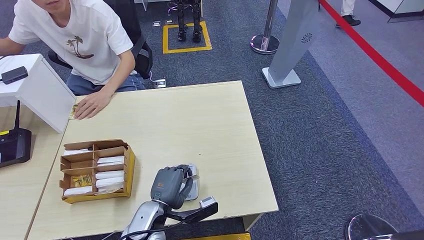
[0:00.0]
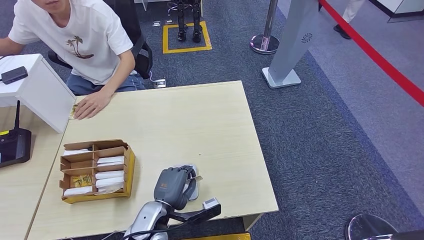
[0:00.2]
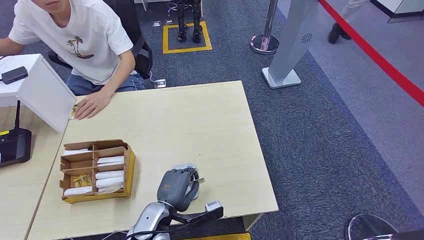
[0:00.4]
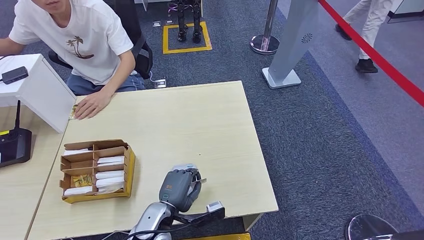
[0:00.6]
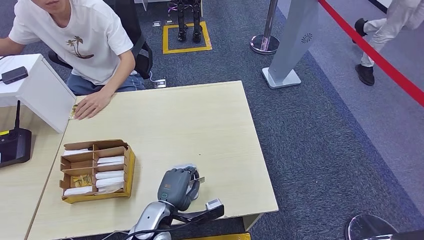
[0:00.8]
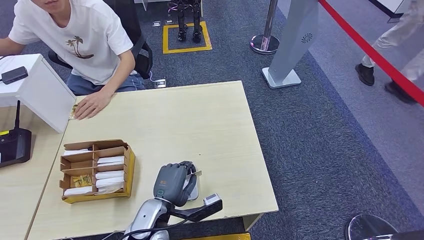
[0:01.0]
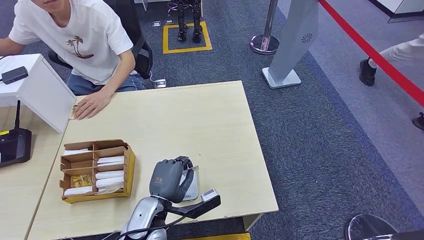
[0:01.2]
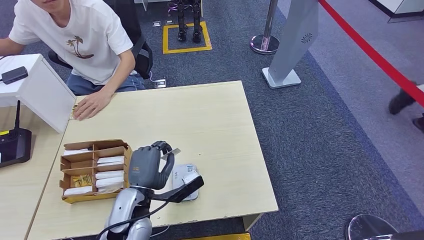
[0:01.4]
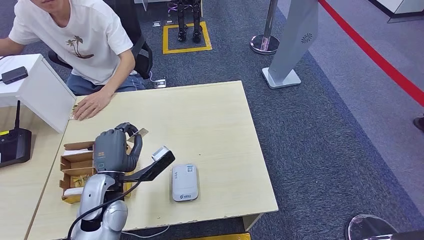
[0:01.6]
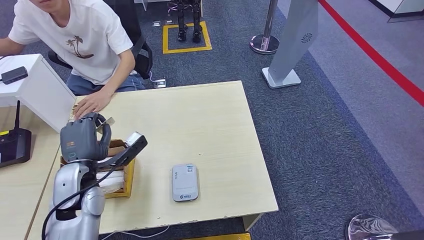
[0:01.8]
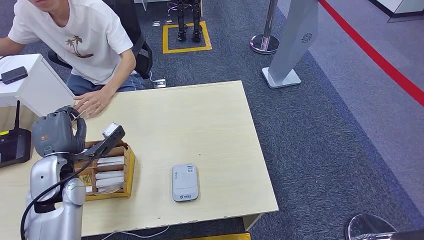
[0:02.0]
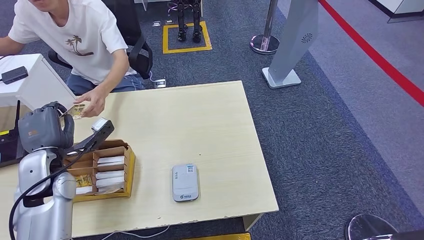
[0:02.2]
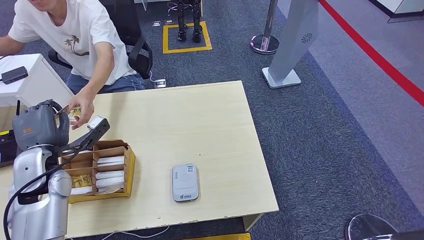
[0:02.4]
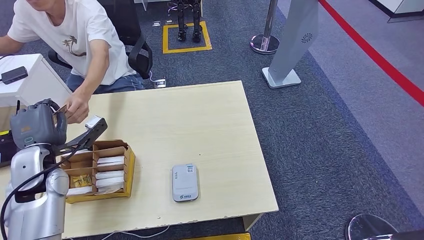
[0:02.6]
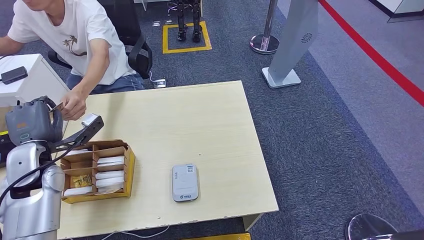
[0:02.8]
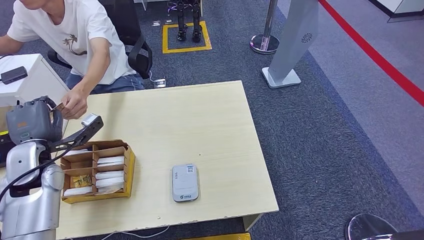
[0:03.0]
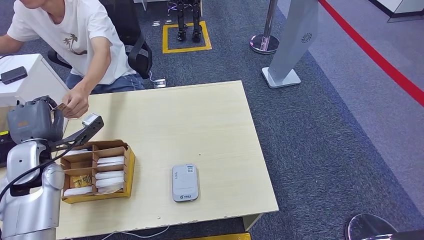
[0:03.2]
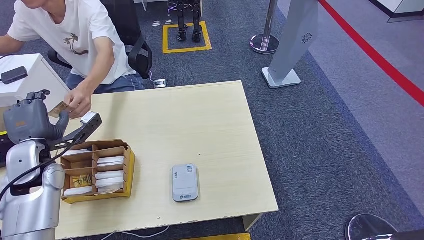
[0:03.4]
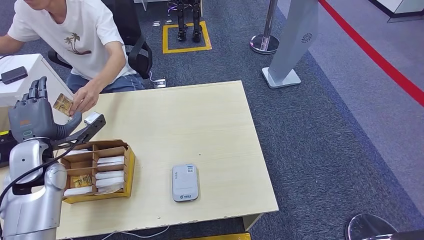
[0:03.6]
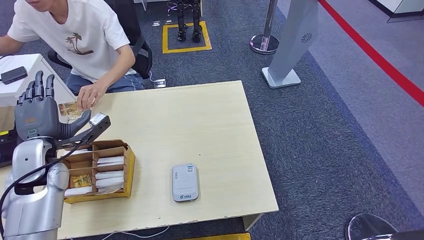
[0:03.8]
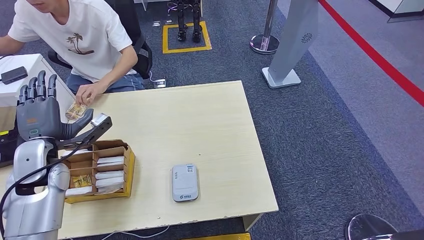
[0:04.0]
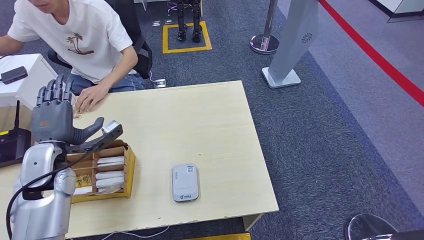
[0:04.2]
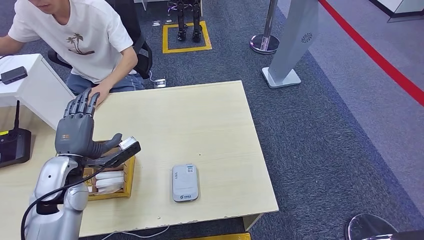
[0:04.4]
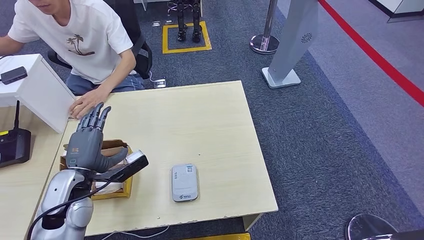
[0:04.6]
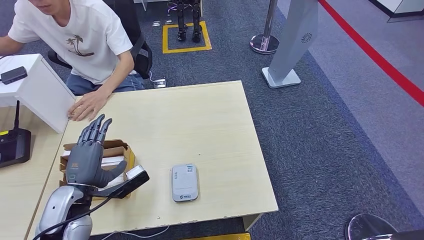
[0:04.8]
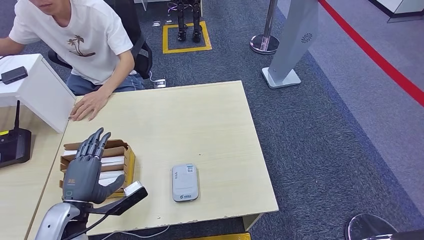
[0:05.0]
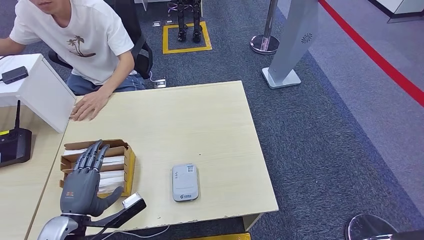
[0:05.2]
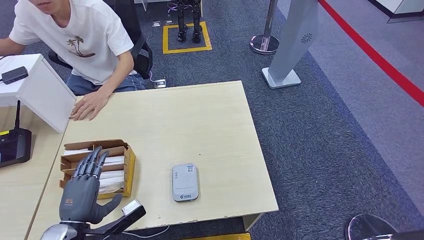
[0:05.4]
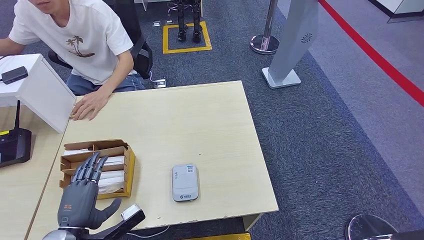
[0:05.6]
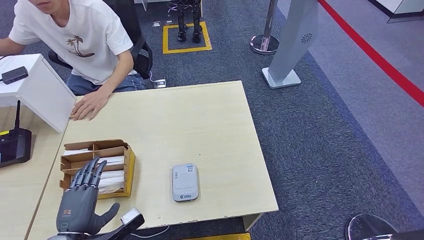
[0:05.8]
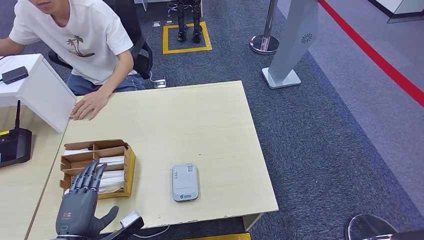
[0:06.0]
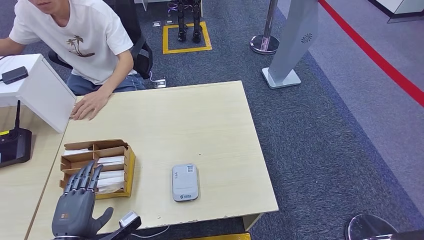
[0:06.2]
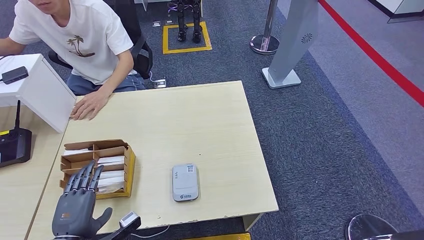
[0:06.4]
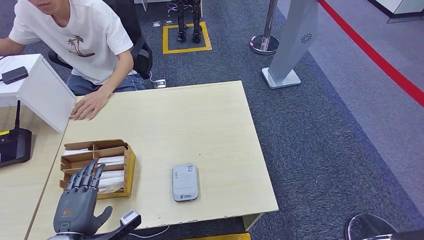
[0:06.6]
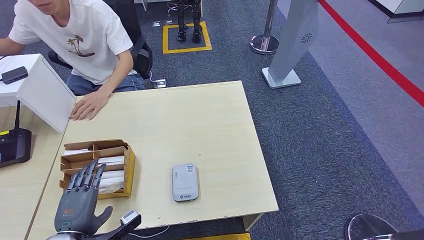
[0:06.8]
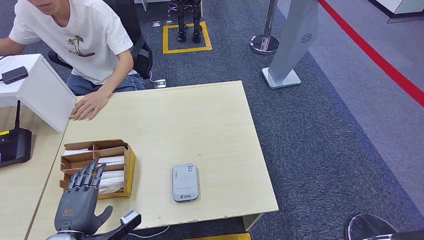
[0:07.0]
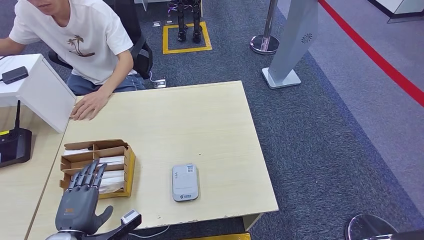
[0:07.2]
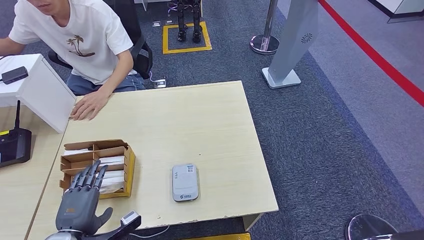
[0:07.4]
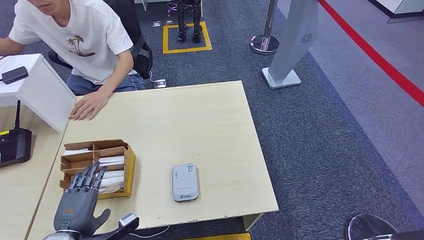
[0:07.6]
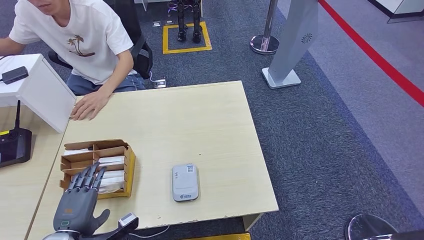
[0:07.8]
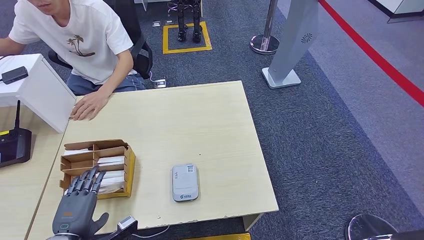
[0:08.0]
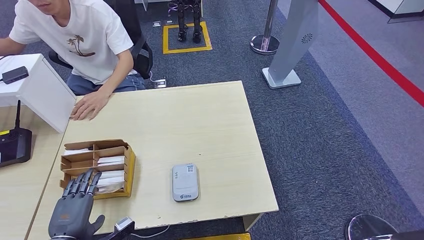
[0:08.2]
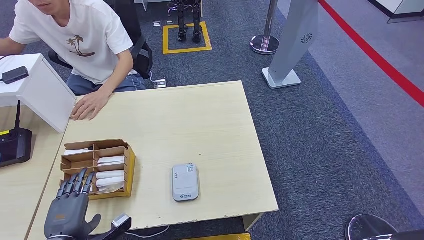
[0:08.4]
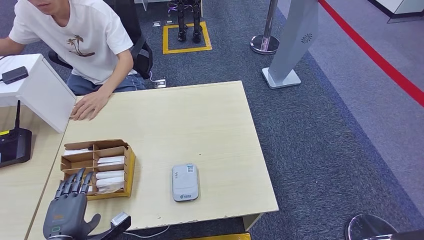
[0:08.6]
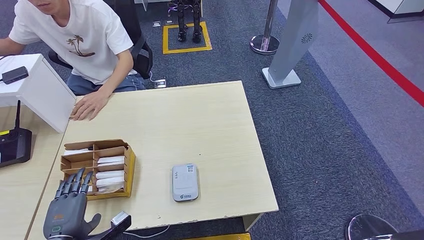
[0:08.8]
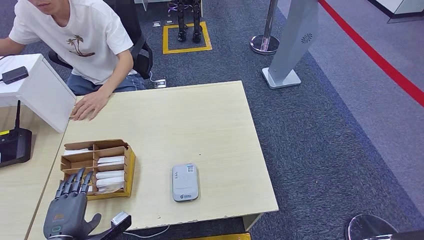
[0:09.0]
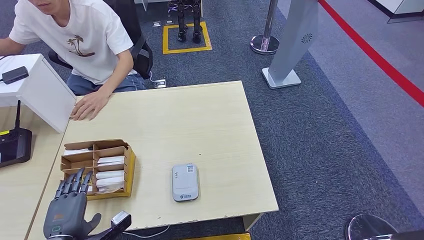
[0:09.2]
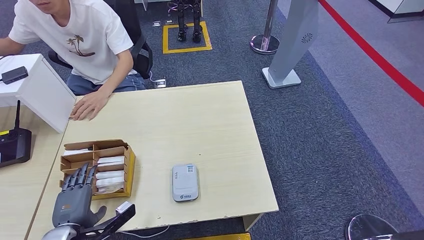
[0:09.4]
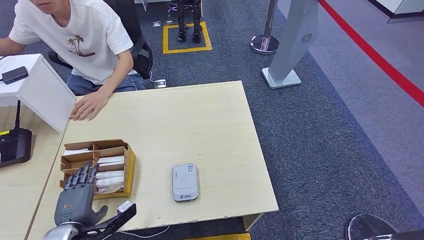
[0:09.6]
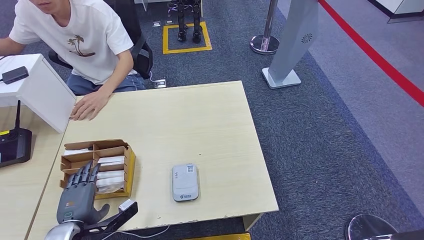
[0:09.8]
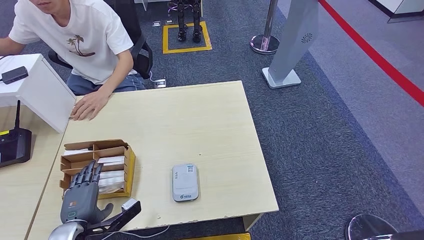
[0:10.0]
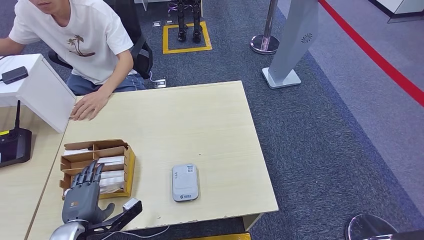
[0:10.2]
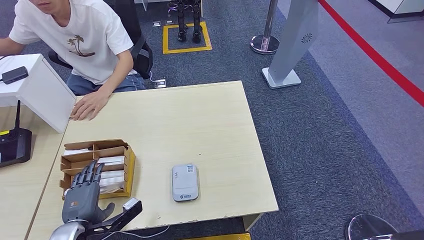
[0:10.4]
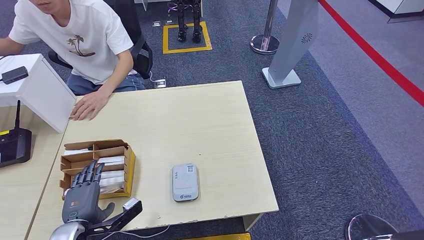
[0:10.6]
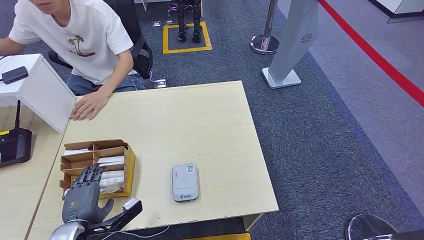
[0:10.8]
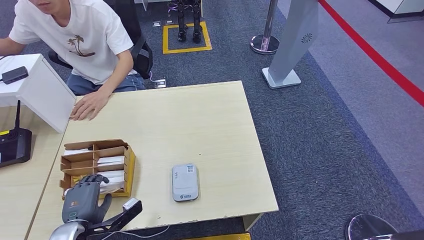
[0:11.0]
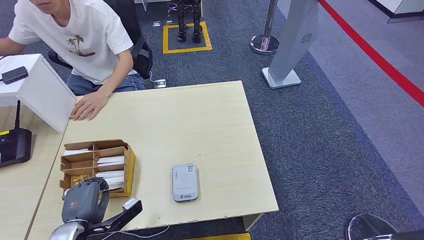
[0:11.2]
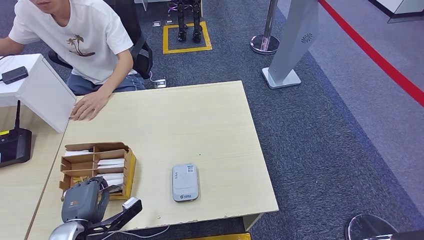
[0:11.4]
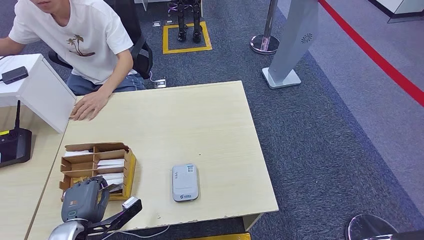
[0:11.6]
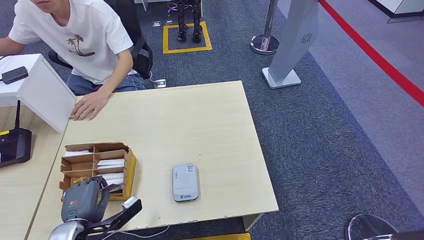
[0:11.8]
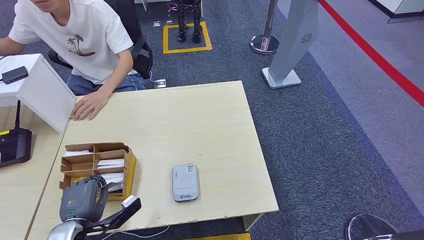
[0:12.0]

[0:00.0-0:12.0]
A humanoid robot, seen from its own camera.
Step, 0:01.6 to 0:03.4: Hand the ID card to the person.
Step, 0:03.6 to 0:12.0: Pick up the room key from the key card box.
0:00.0 to 0:01.6: The left hand travels upward and to the left by about 10 cm.
0:01.6 to 0:03.0: The left hand moves to the left and forward, approximately 20 cm.
0:03.0 to 0:04.4: The left hand is displaced to the right by roughly 5 cm.
0:04.4 to 0:06.0: The left hand moves backward and downward, about 15 cm.
0:06.0 to 0:10.4: The hands move only a little.
0:10.4 to 0:12.0: Both hands stay about where they are.

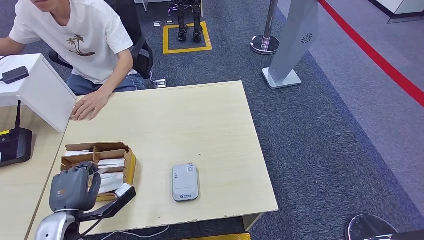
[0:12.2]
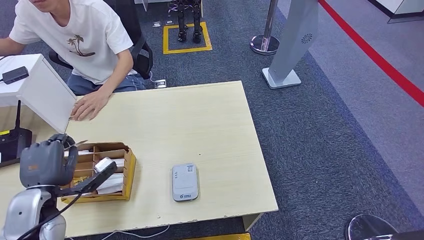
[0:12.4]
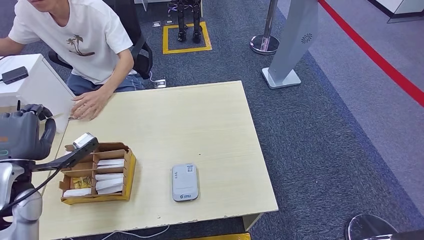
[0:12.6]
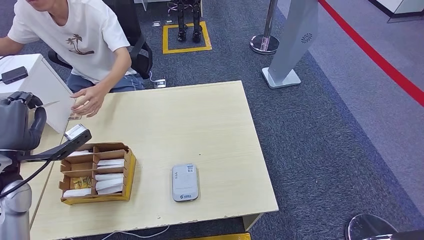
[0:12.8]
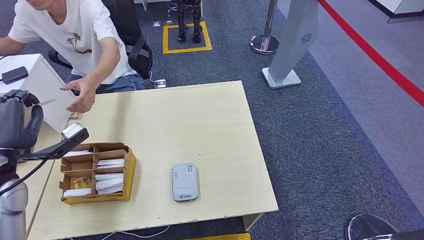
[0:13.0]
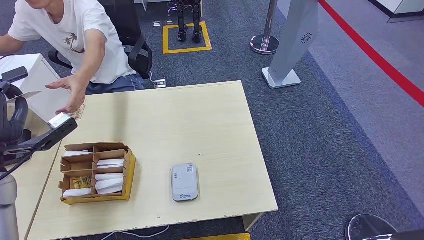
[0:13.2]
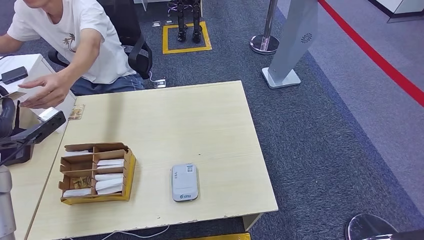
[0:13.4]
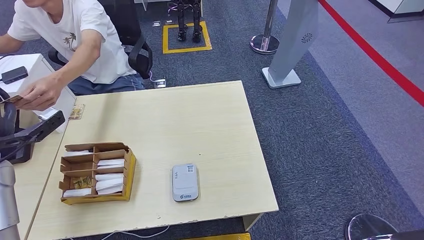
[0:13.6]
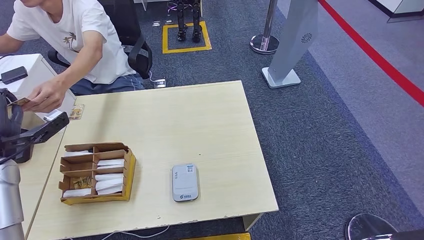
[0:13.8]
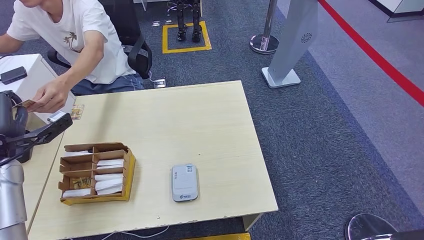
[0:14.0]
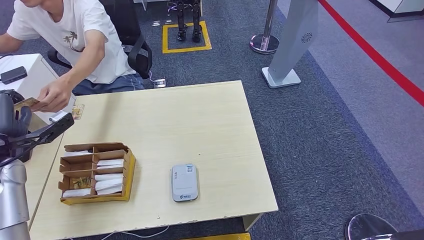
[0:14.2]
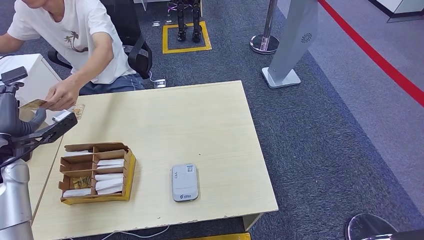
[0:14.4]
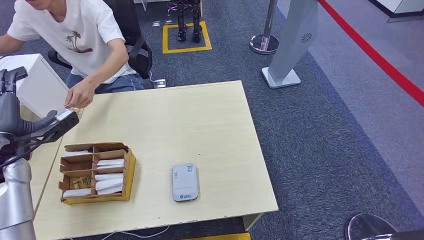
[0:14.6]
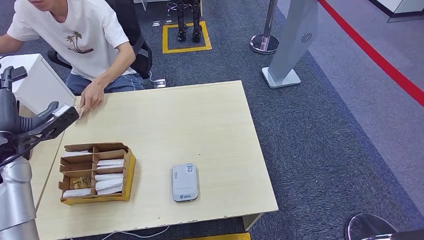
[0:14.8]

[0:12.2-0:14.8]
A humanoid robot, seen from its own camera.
Step, 0:12.2 to 0:14.8: Hand the room key to the person.
0:12.2 to 0:13.4: The left hand shifts roughly 20 cm upward, to the left and forward.
0:13.4 to 0:14.8: There are only small adjustments of the hands.
